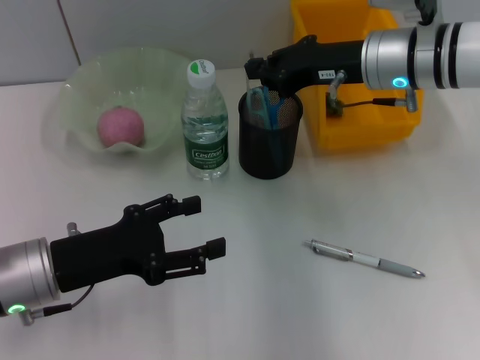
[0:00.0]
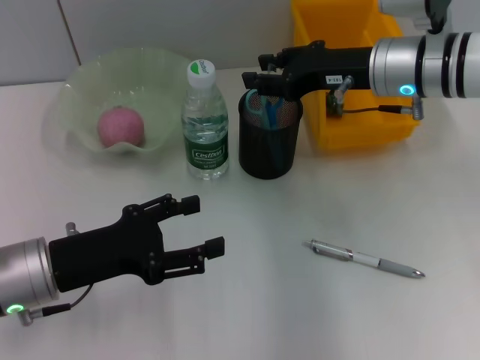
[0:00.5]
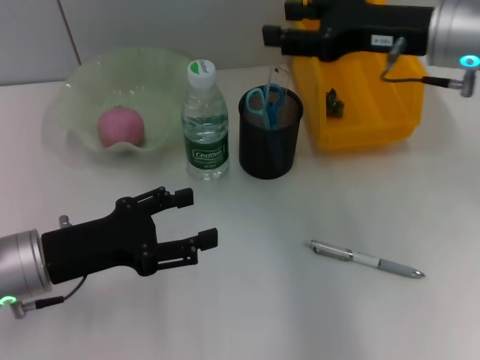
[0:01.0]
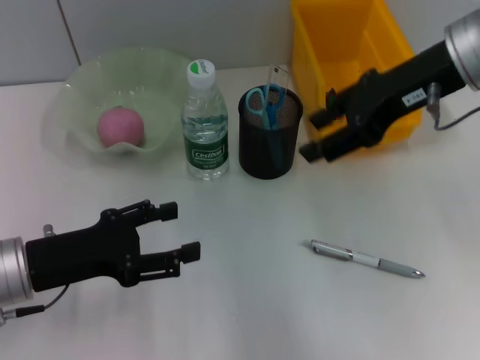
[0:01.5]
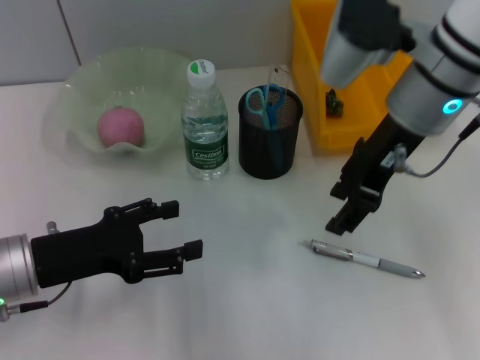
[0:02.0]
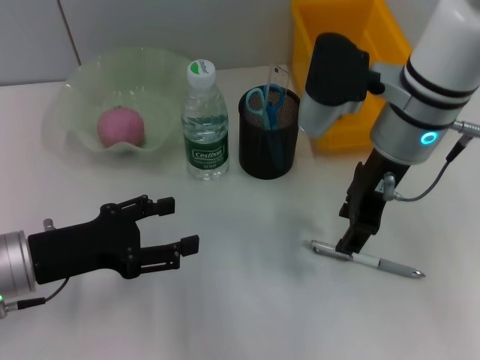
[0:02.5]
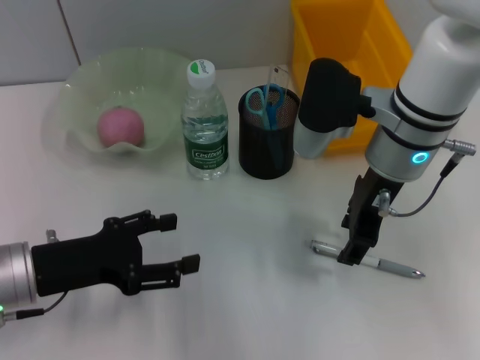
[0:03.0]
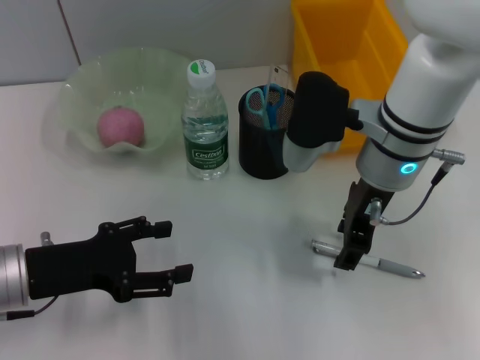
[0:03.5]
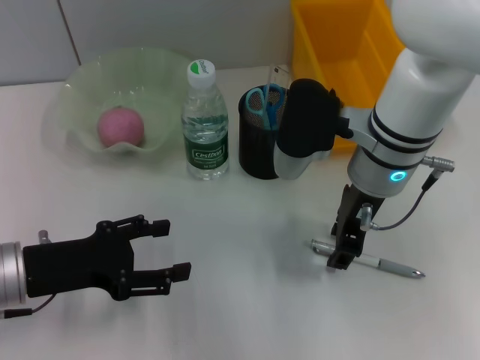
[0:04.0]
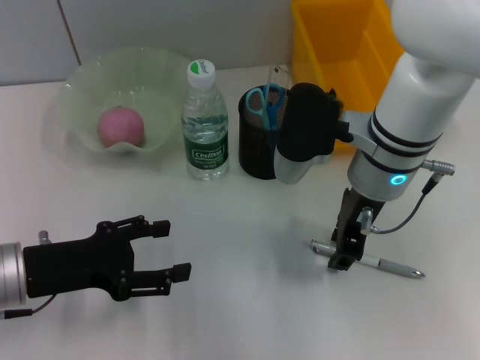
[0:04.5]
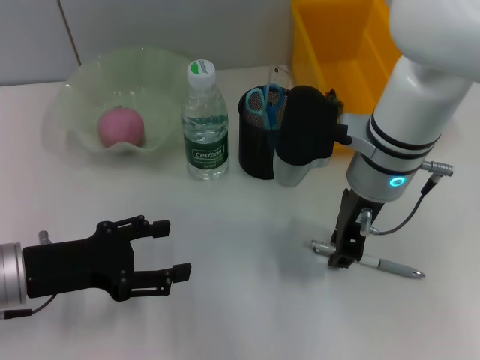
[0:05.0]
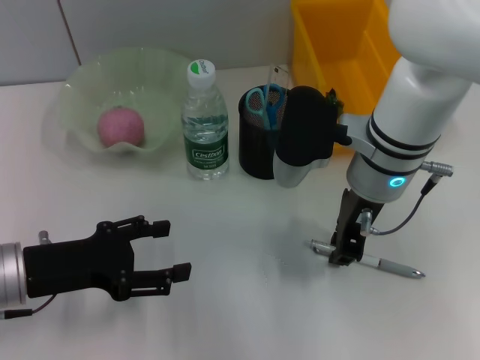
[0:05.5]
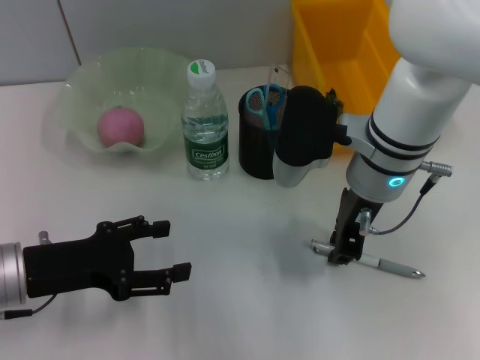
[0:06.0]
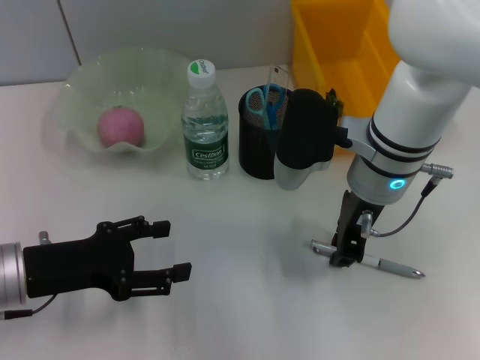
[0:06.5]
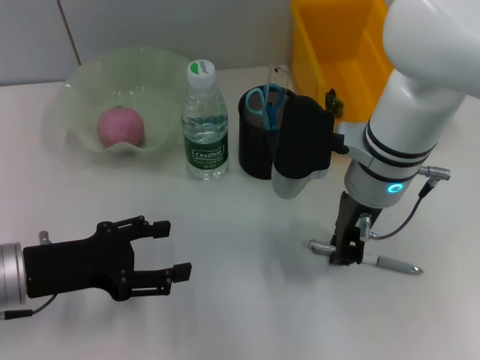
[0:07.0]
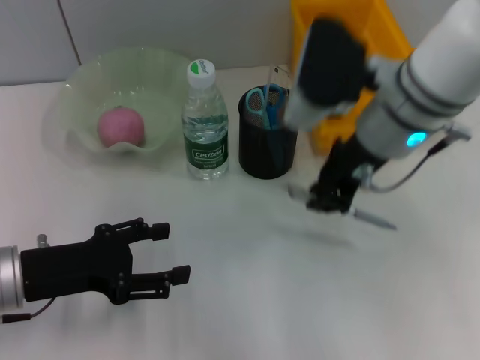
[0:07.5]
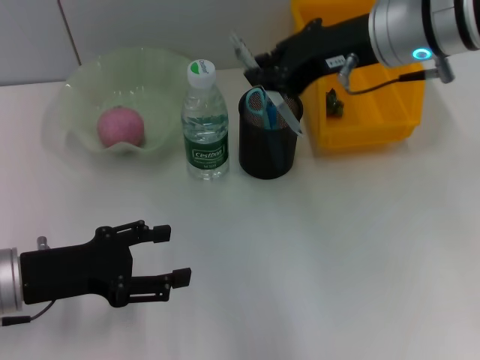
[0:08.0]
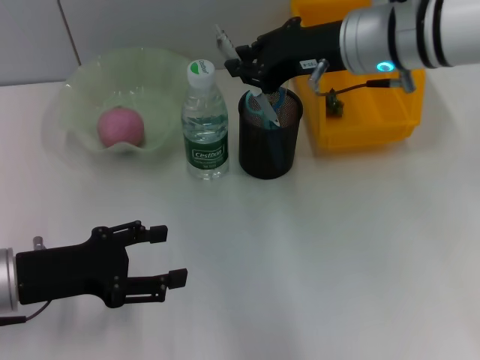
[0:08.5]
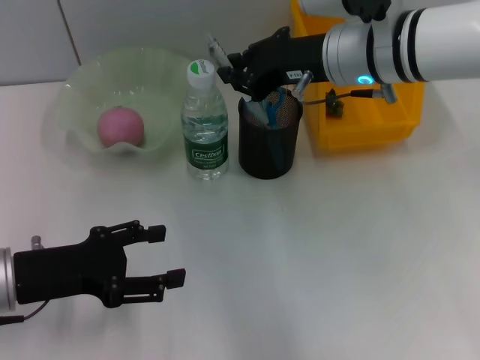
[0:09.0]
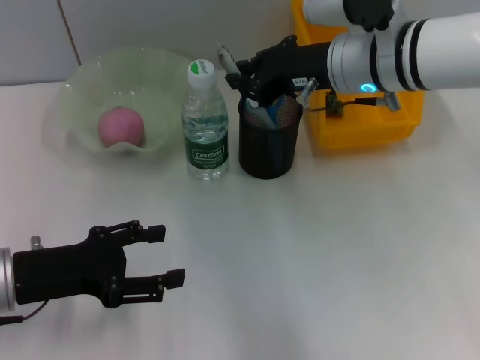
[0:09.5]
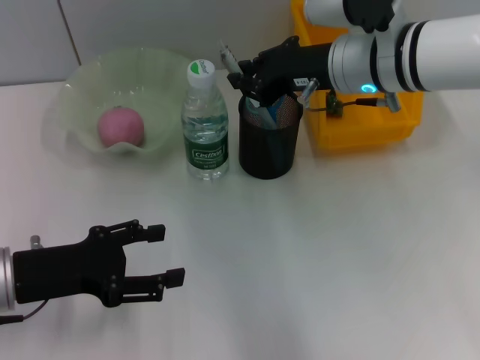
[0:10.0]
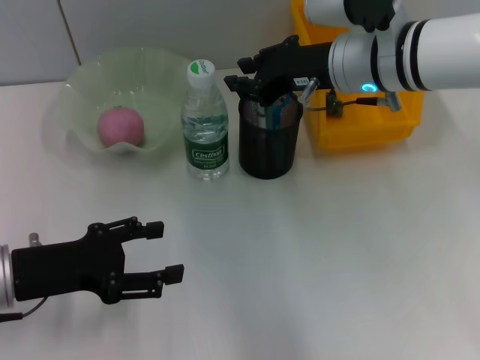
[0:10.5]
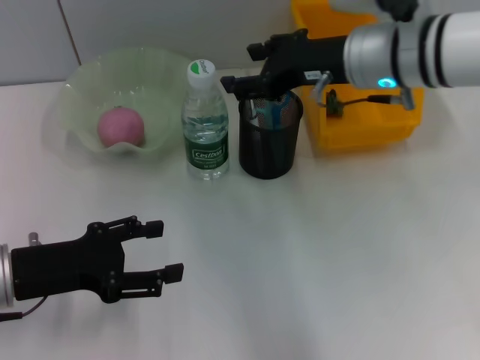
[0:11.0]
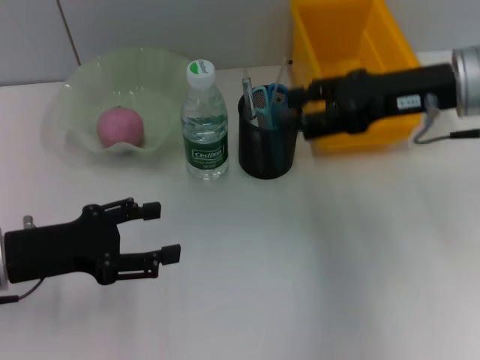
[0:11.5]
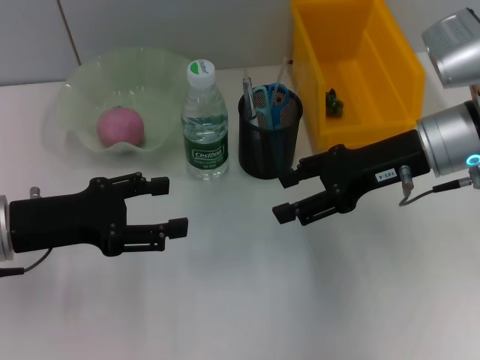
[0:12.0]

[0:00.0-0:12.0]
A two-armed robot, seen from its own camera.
Step, 0:01.0 to 0:07.0: Grab the gray spring-action pen with the right hand.
Step, 0:07.5 to 0:11.0: Place the gray spring-action pen into the pen holder with the right hand.
0:00.0 to 0:02.0: The right gripper travels upward by some 5 cm, and opens up.
0:02.0 to 0:04.0: The right gripper shifts about 5 cm downward.
0:04.0 to 0:06.0: The right gripper closes up.
0:06.0 to 0:08.0: The right gripper heads upward, covering about 10 cm.
0:08.0 to 0:10.0: The right gripper heads downward, covering roughly 5 cm.
0:10.0 to 0:12.0: The right gripper heads to the right, covering about 10 cm, and opens.
